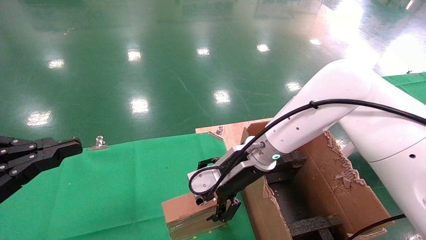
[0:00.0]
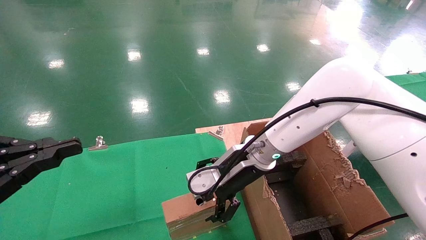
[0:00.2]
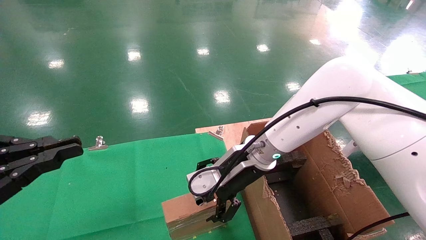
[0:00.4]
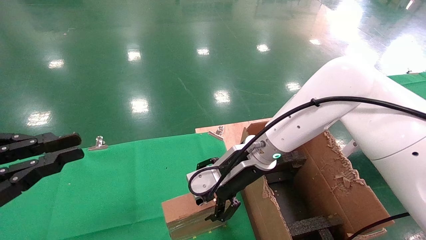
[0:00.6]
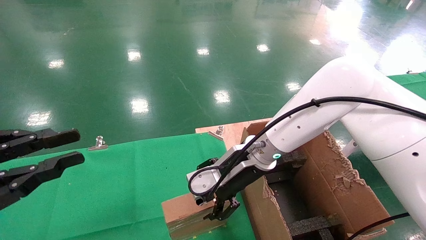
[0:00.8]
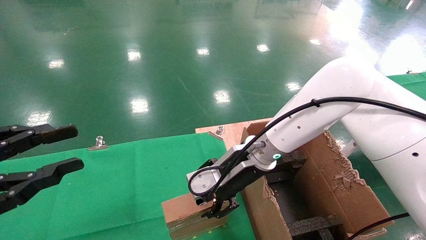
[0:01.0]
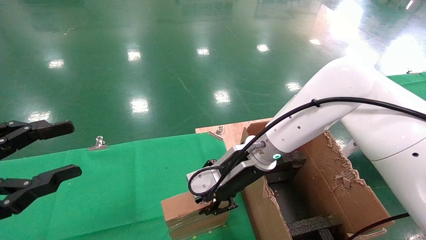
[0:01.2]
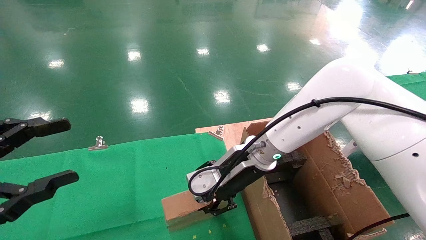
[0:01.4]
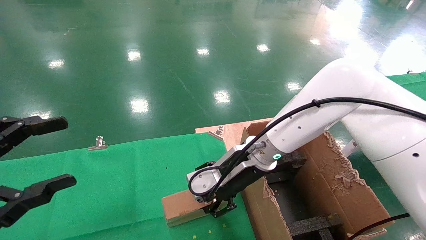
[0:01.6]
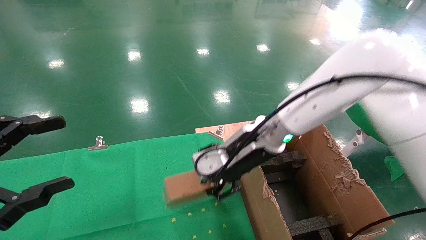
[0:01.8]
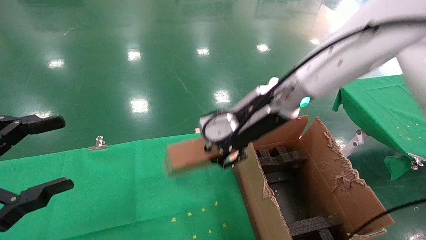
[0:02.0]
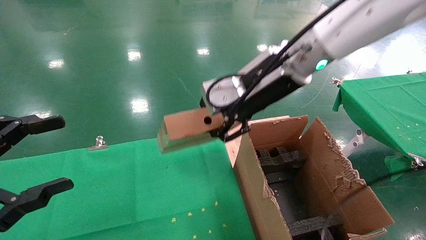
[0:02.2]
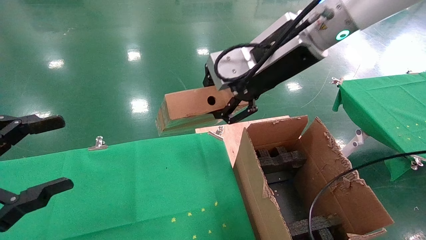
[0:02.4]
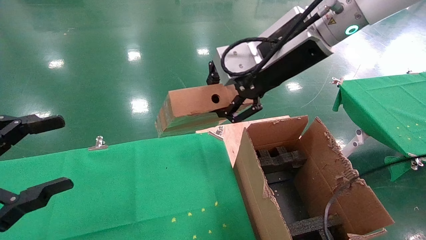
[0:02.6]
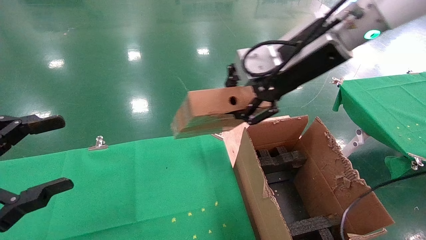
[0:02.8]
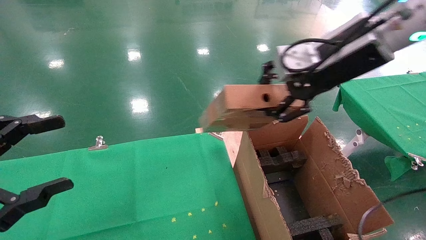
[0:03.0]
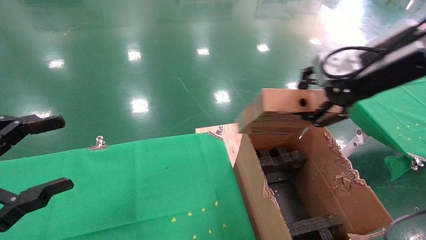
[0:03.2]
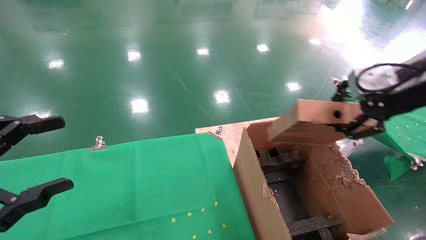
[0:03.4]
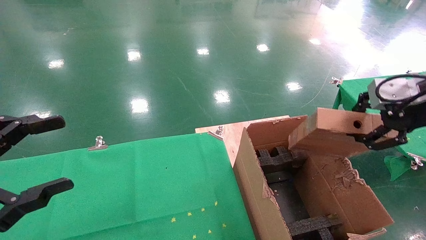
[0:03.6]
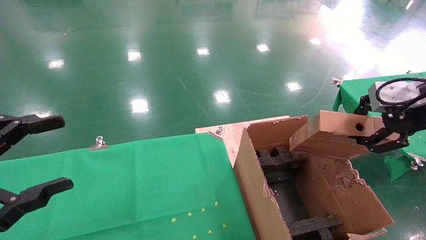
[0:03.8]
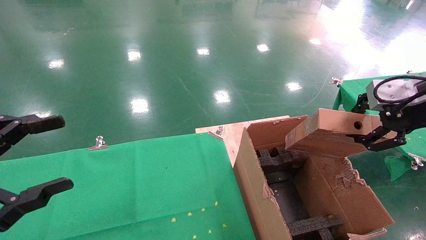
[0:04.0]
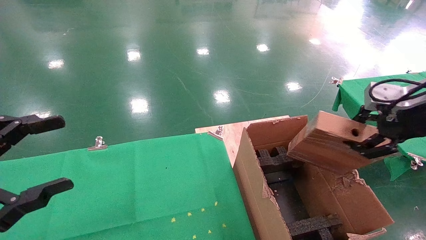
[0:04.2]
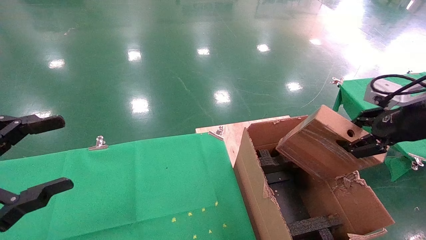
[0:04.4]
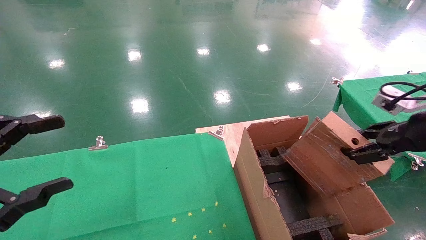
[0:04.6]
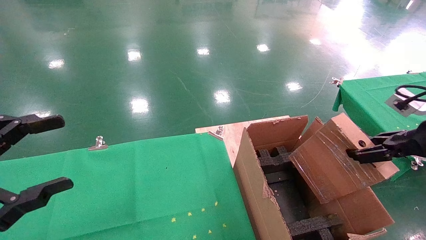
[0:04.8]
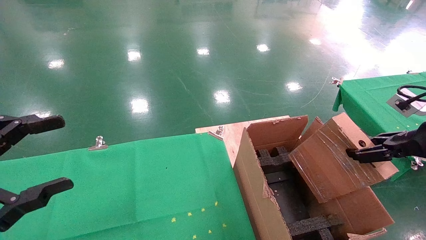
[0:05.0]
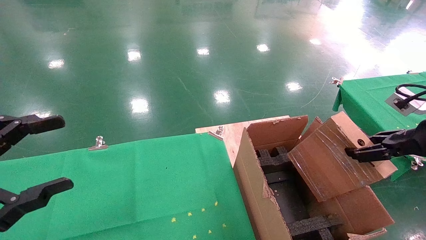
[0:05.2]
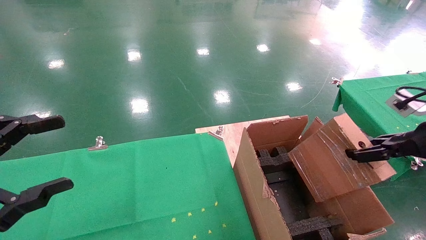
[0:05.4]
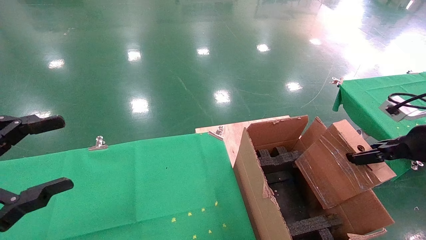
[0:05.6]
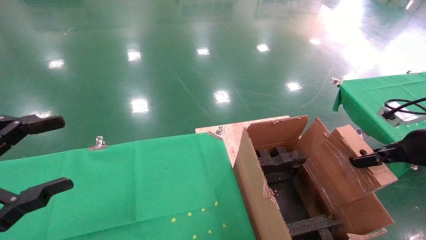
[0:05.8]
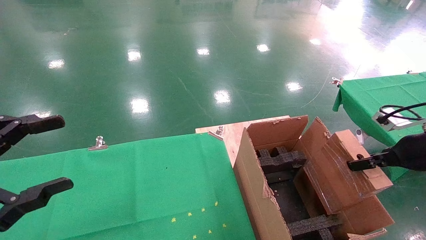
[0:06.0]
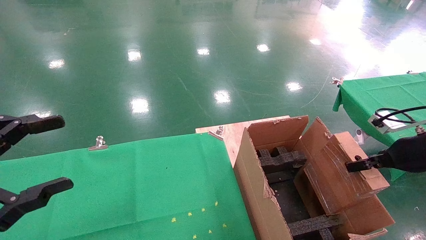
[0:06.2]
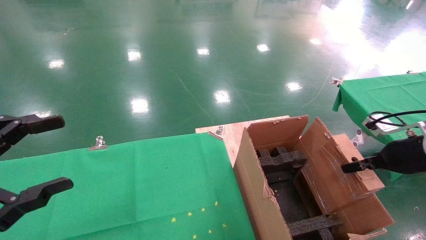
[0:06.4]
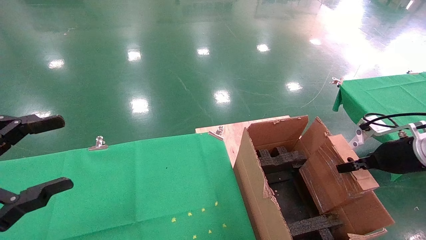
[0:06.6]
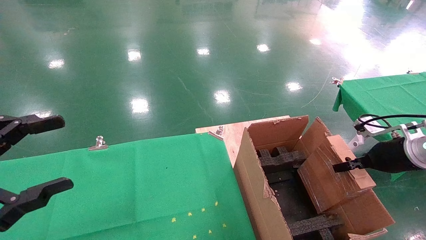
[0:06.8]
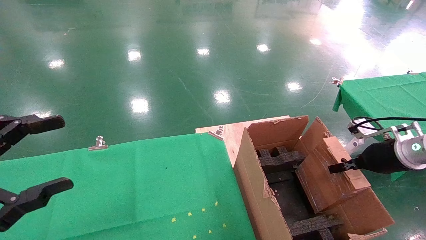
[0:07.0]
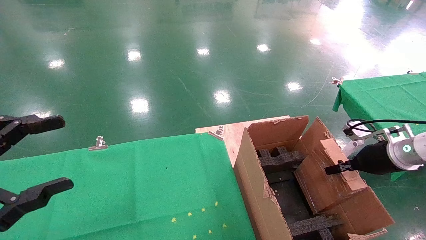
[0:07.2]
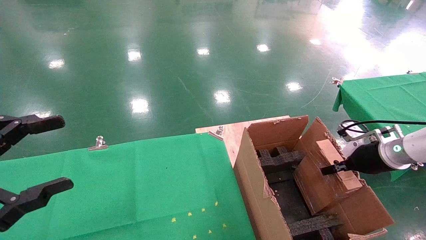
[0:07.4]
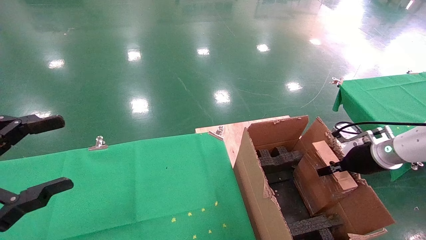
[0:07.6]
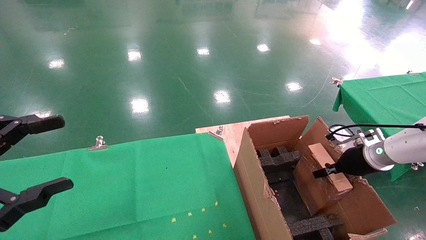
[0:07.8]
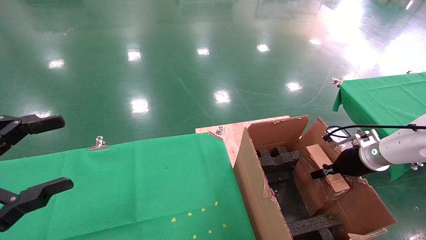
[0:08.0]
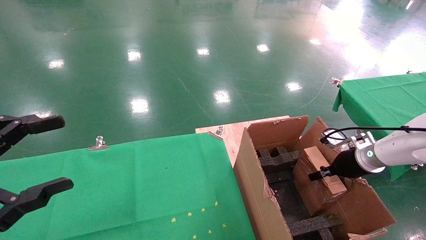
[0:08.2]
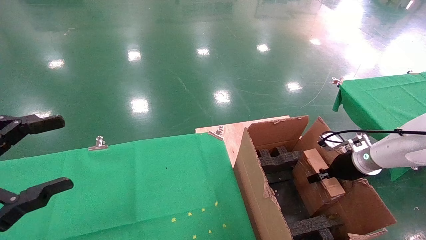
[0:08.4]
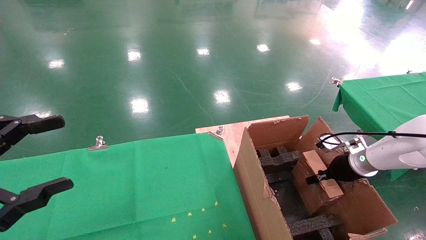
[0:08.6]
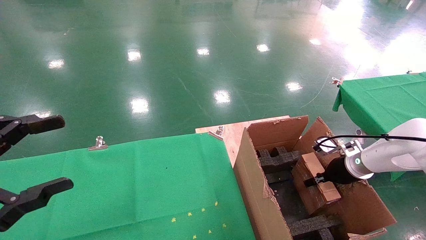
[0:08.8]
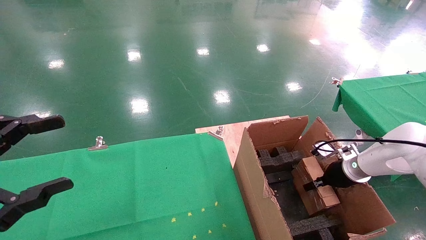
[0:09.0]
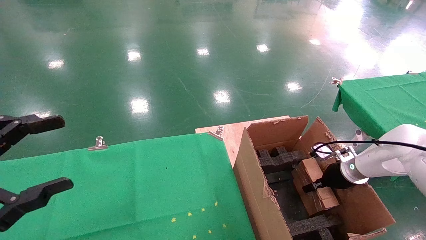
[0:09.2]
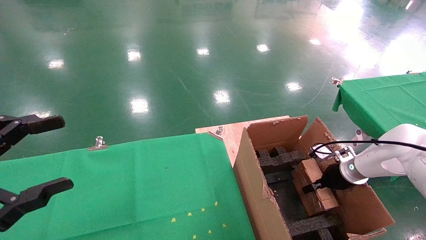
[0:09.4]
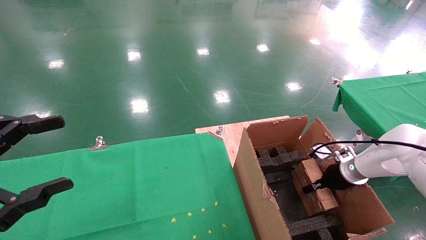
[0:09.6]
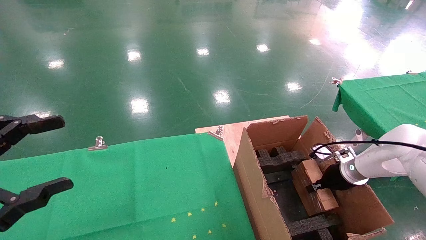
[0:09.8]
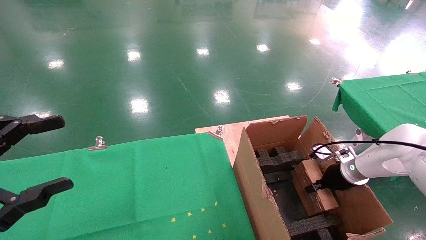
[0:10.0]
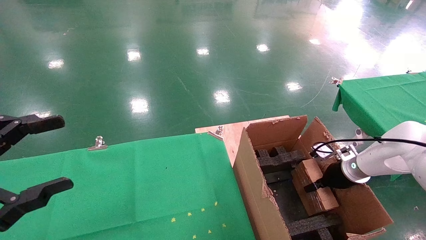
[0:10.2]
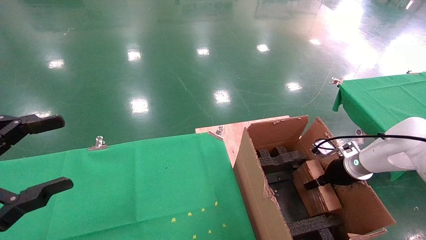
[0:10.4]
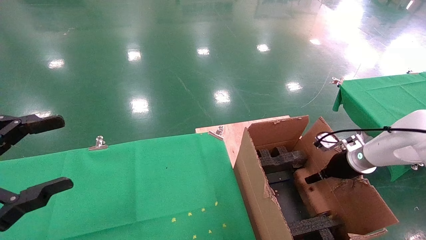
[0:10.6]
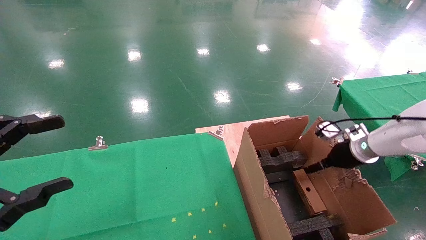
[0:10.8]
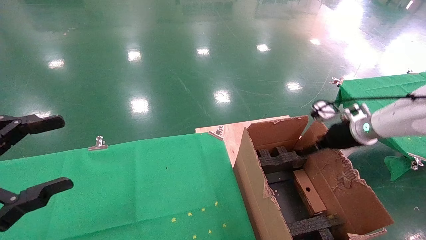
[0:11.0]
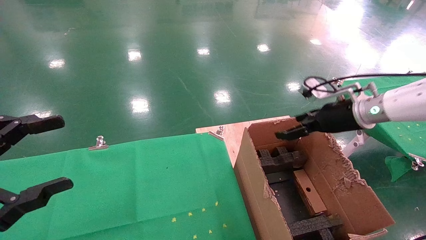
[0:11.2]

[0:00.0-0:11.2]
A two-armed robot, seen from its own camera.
Task of the whole recording: using a robotic arm to pick up a cardboard box and palace it the carton.
Step, 0:01.4 to 0:10.8: Place the mouse and the power cord paper box into the container.
0:00.0 to 0:01.6: The right gripper closes. The left gripper opens its fingers.
0:01.6 to 0:03.2: The right gripper shifts roughly 30 cm to the right, upward and backward.
0:03.2 to 0:04.8: The right gripper moves to the right and downward, roughly 20 cm.
0:04.8 to 0:06.4: The right gripper shifts roughly 10 cm downward and forward.
0:06.4 to 0:08.0: The right gripper moves forward and downward, roughly 10 cm.
0:08.0 to 0:09.6: The right gripper moves downward, roughly 5 cm.
0:09.6 to 0:11.2: The right gripper heads upward, covering about 20 cm, and opens up.

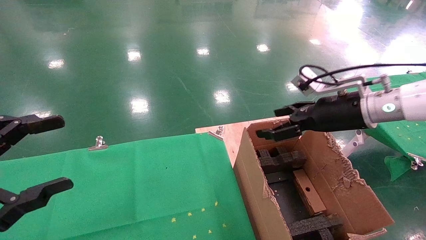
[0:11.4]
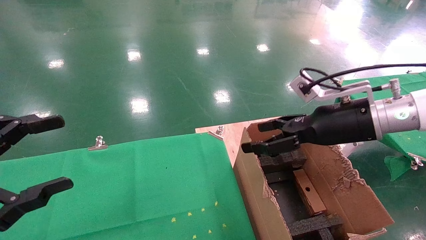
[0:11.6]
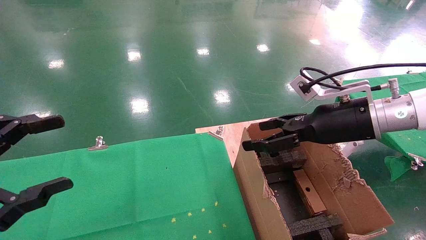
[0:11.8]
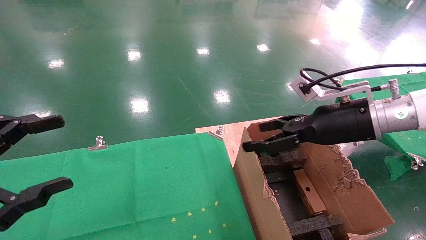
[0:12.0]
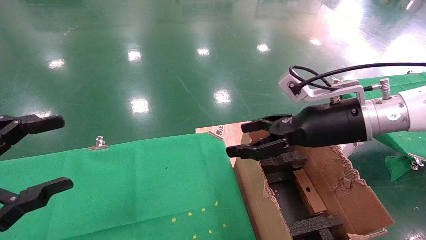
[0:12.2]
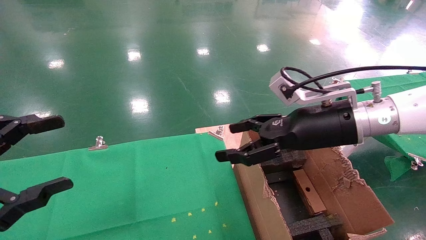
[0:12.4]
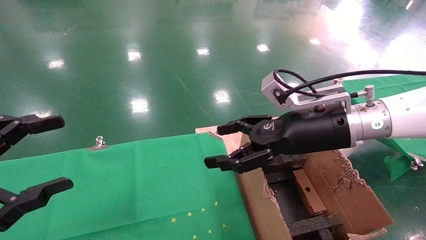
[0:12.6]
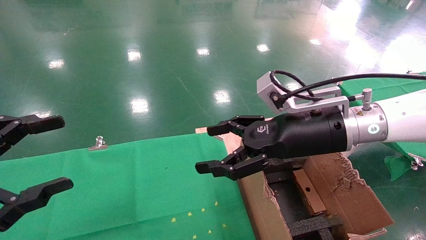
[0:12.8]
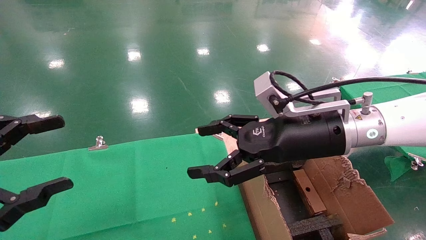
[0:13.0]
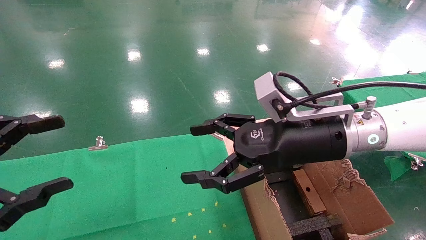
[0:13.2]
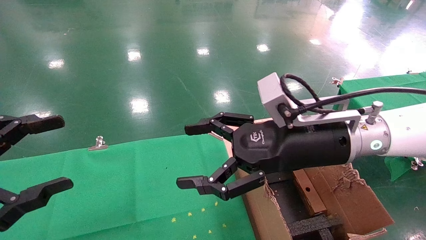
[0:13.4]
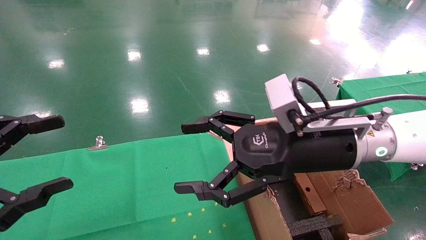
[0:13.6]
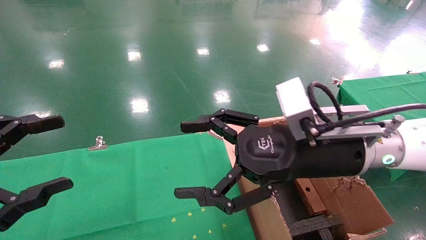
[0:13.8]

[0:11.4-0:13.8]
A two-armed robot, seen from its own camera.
Task of the whole recording: using a robotic arm to pick up a cardboard box and palace it the carton.
0:11.4 to 0:12.6: The right gripper is displaced to the left by approximately 10 cm.
0:12.6 to 0:13.8: The right gripper ends up about 5 cm from where it was.
